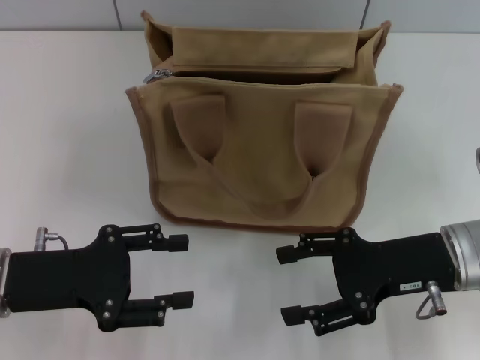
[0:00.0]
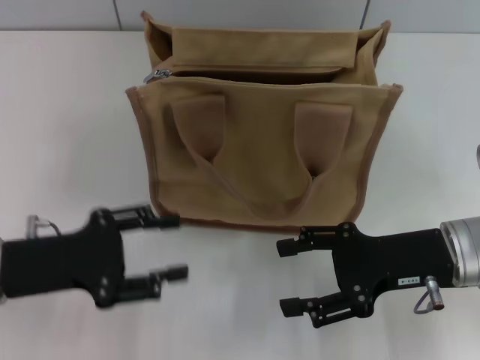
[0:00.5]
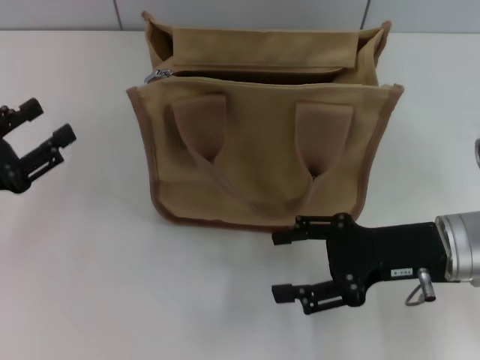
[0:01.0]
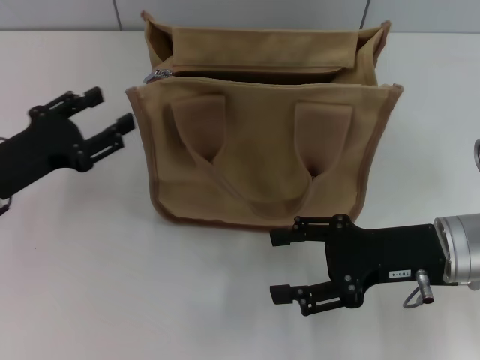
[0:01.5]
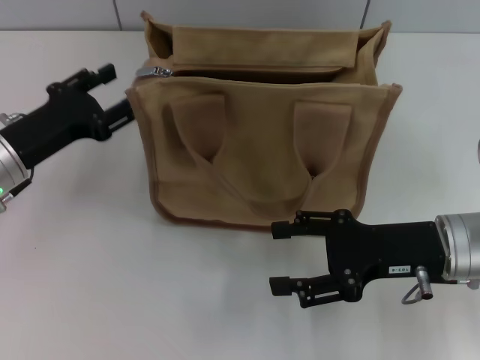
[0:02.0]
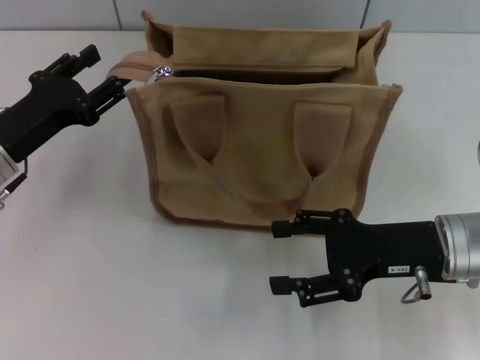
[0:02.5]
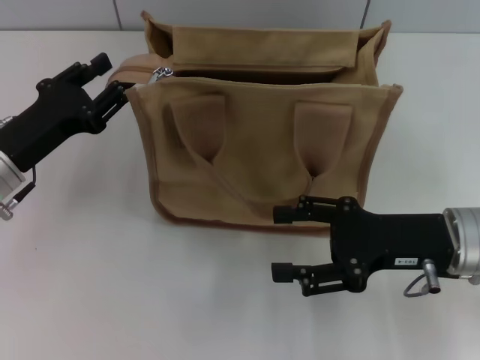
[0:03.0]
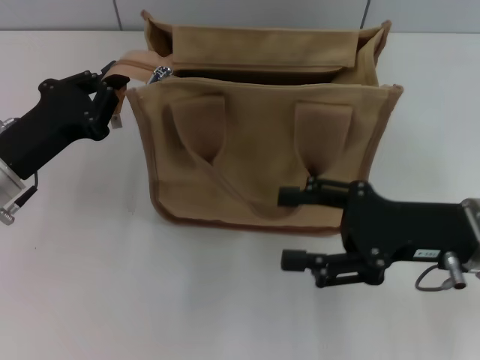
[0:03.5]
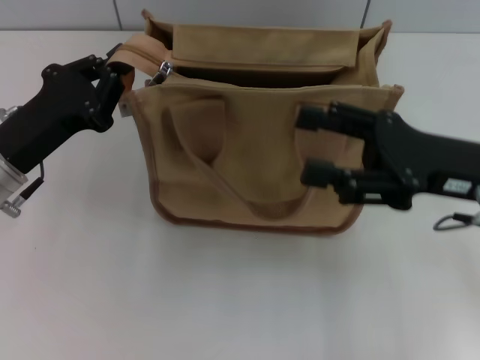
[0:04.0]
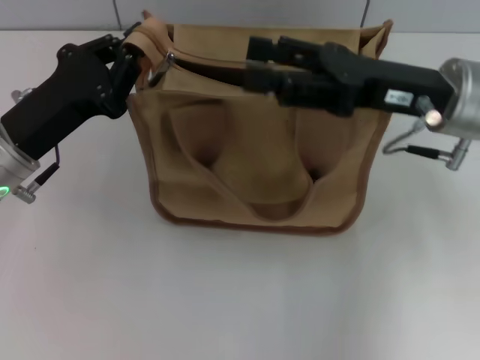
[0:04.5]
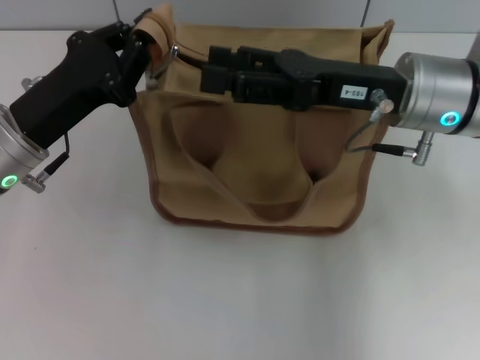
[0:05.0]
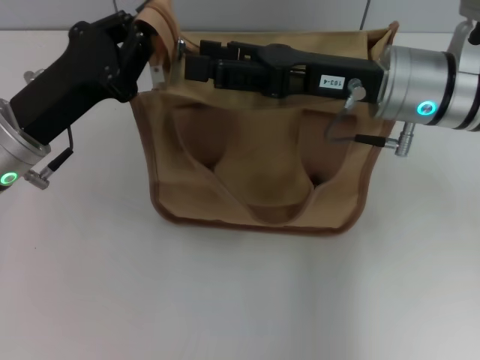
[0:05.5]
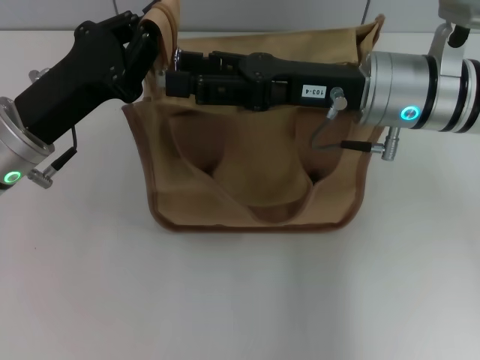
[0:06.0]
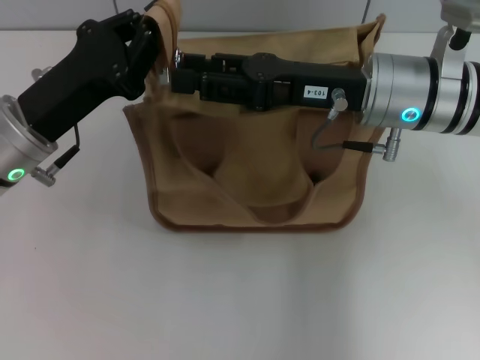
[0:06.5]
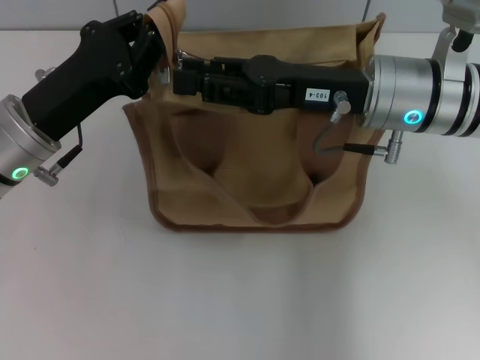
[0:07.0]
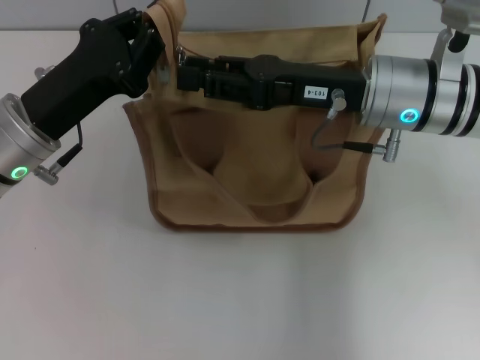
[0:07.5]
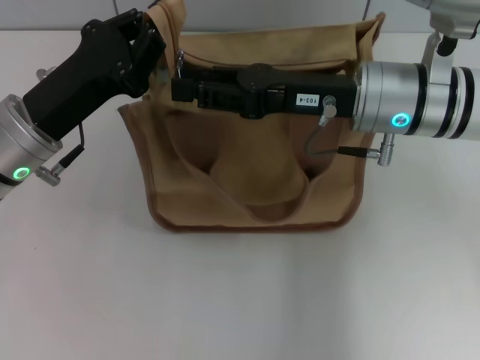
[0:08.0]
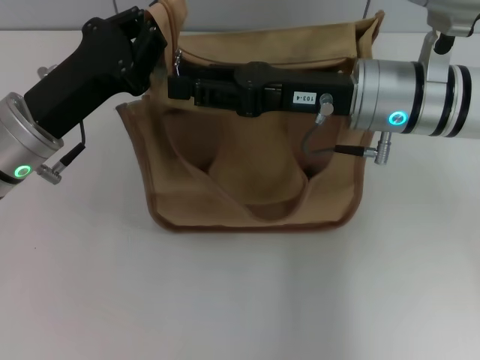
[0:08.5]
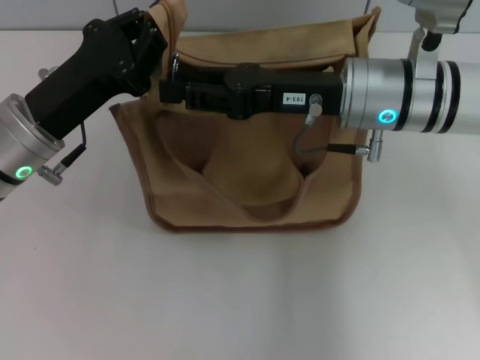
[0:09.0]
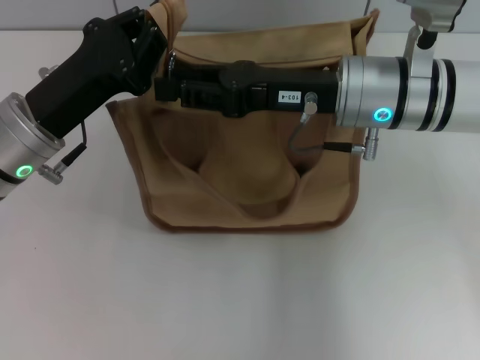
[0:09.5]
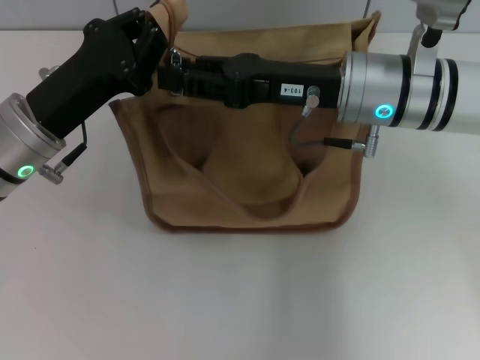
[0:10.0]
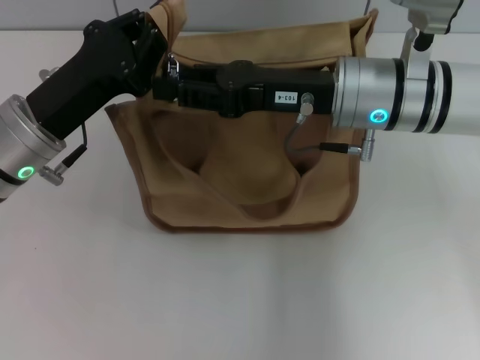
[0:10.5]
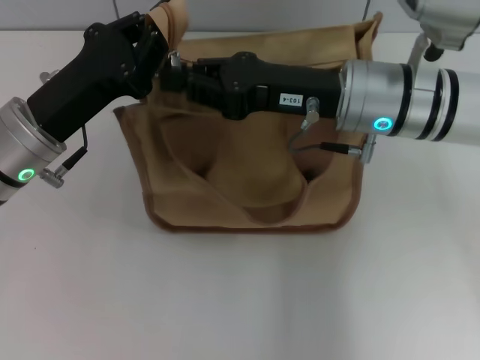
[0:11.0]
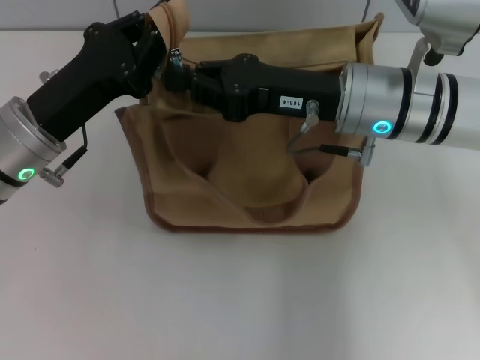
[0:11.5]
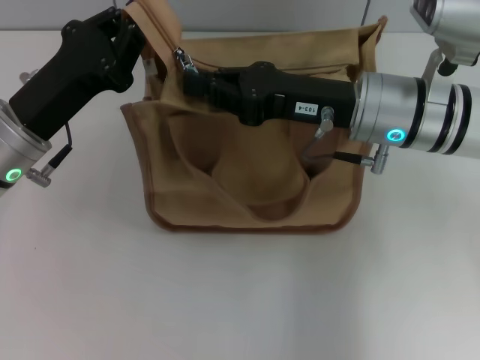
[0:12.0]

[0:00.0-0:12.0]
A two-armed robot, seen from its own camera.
0:00.0 to 0:02.0: The left gripper moves forward, some 10 cm.
0:02.0 to 0:04.0: The right gripper heads upward, covering some 5 cm. The left gripper closes its fingers.
0:04.0 to 0:06.0: The right gripper heads to the left and forward, covering approximately 10 cm.
0:06.0 to 0:08.0: The right gripper closes.
0:08.0 to 0:10.0: The grippers move only a little.
0:10.0 to 0:12.0: The right gripper closes up.

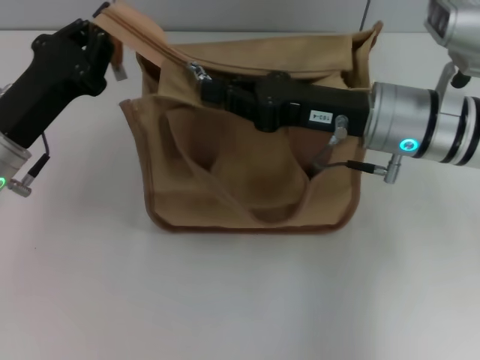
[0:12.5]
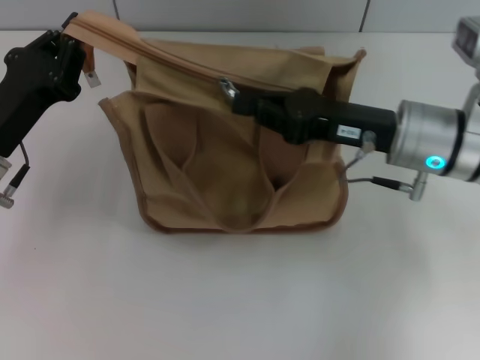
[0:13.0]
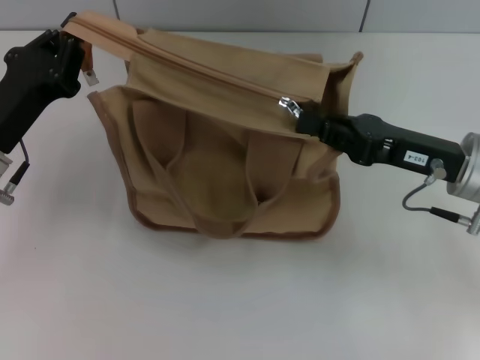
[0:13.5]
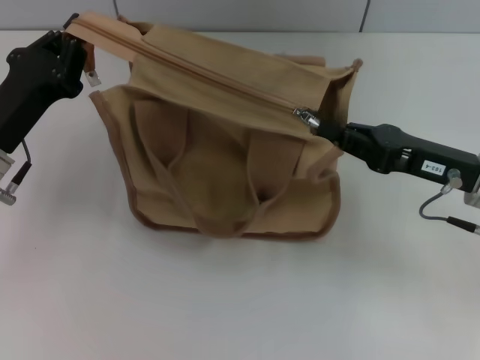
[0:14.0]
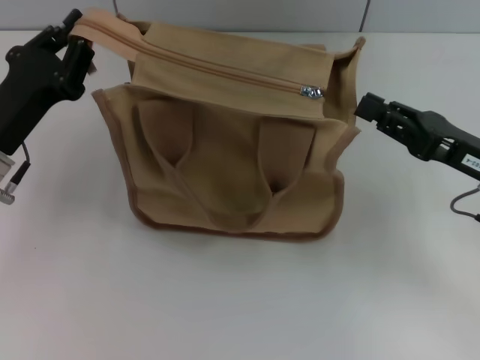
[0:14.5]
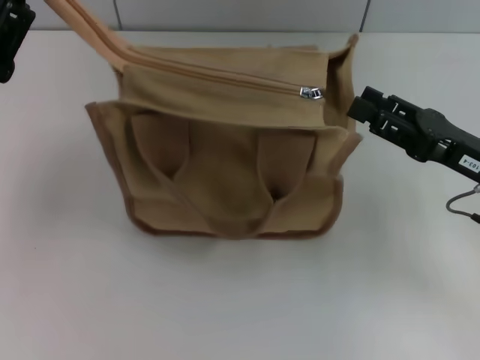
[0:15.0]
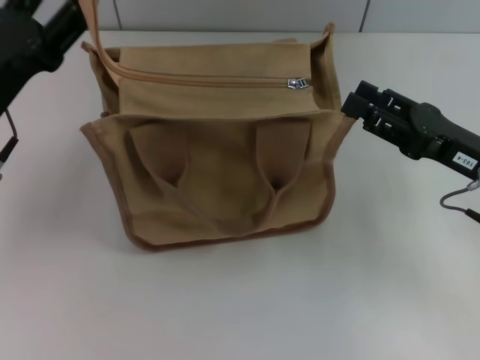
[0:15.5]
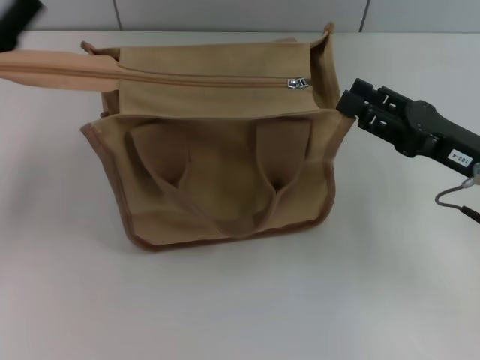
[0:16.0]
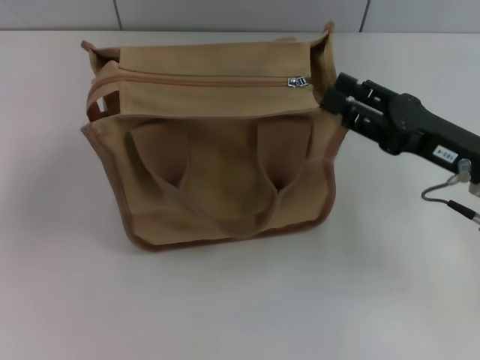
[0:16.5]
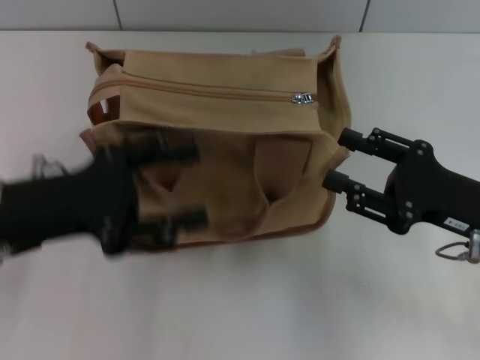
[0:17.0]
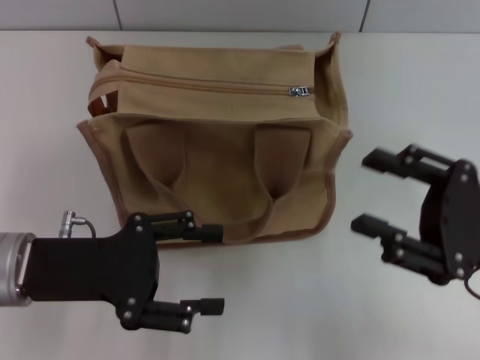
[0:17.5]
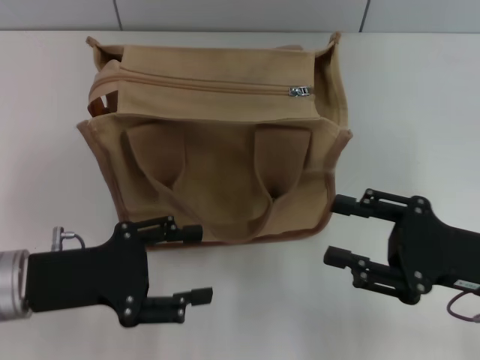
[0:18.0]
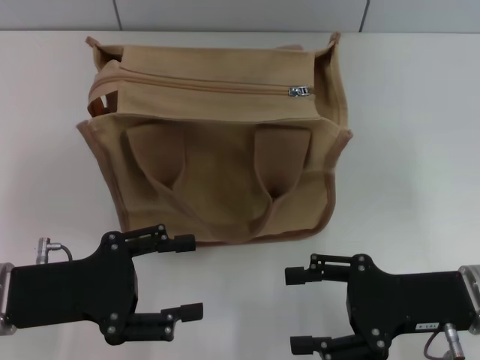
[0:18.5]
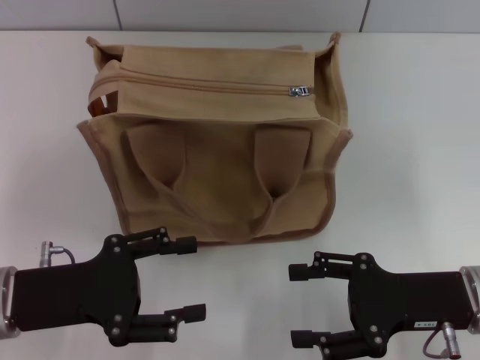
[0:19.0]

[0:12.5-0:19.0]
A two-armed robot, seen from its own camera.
Step, 0:14.5 to 0:16.0: Grab the zipper with your left hand.
0:12.5 to 0:14.5: The right gripper travels to the right and backward by some 15 cm.
0:14.5 to 0:17.0: The right gripper opens, while the left gripper moves some 5 cm, and opens.
0:17.0 to 0:19.0: The left gripper ends up approximately 5 cm from where it was.
